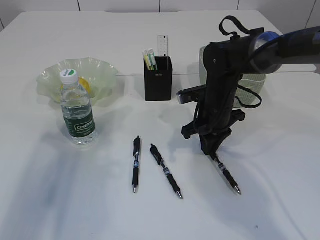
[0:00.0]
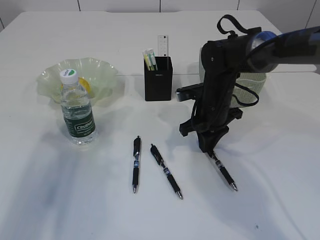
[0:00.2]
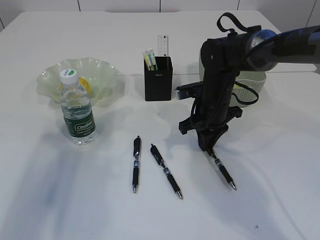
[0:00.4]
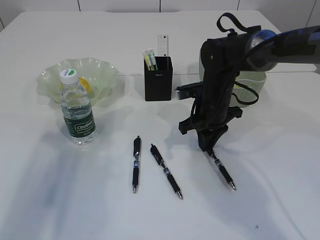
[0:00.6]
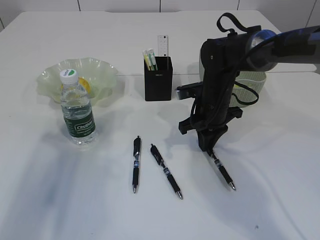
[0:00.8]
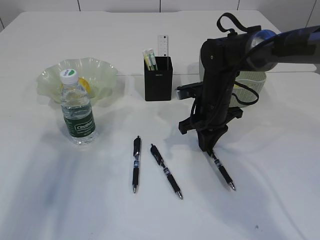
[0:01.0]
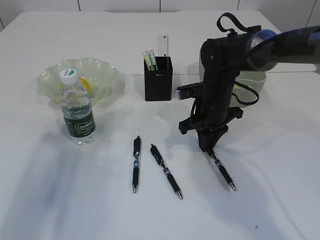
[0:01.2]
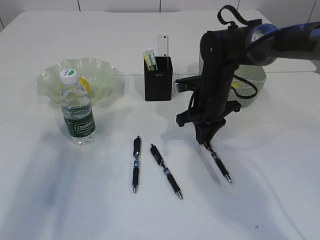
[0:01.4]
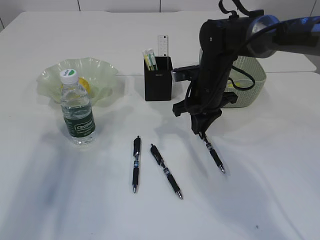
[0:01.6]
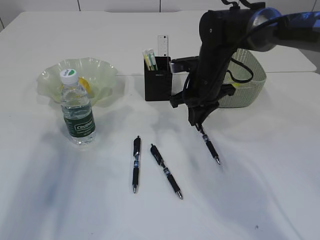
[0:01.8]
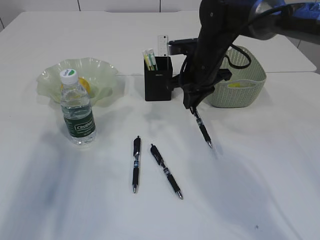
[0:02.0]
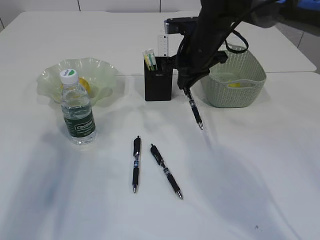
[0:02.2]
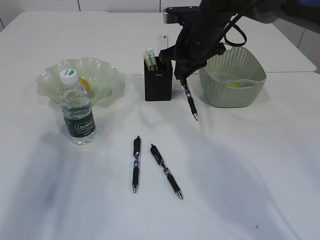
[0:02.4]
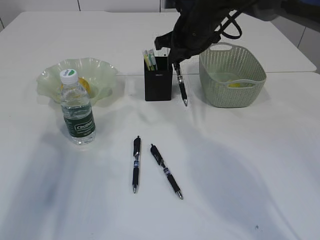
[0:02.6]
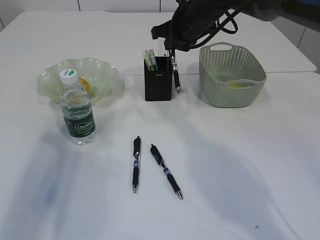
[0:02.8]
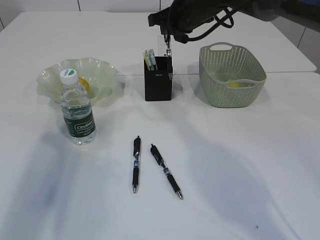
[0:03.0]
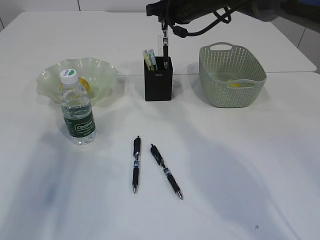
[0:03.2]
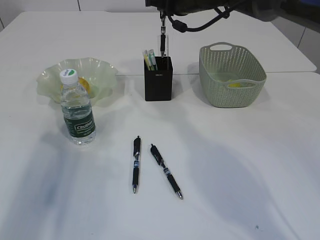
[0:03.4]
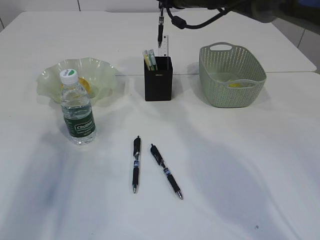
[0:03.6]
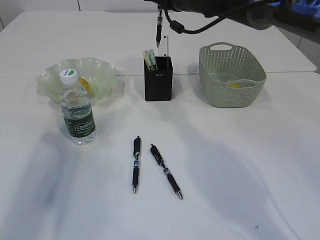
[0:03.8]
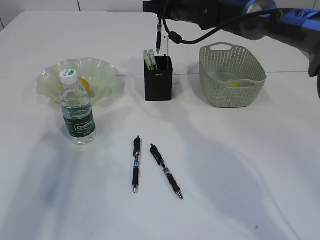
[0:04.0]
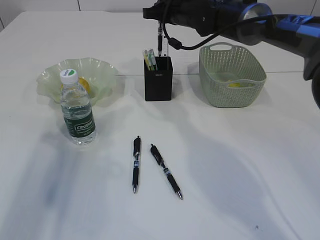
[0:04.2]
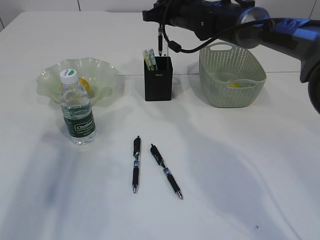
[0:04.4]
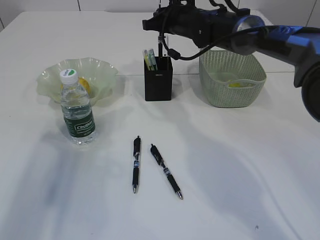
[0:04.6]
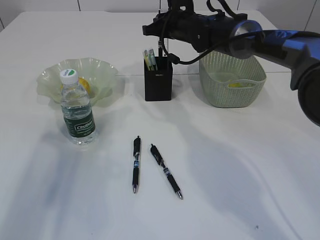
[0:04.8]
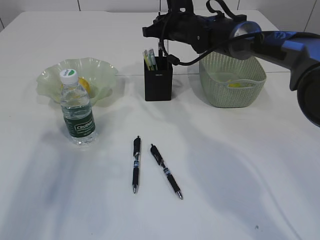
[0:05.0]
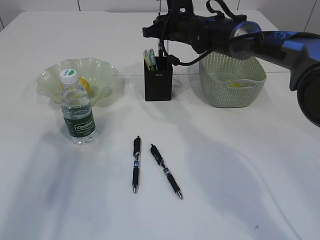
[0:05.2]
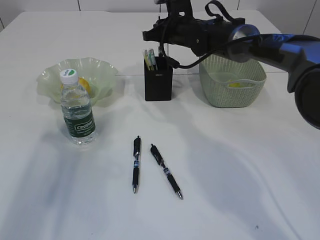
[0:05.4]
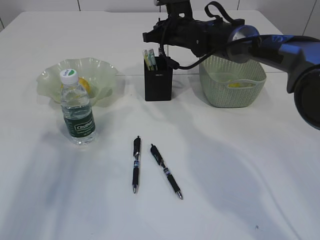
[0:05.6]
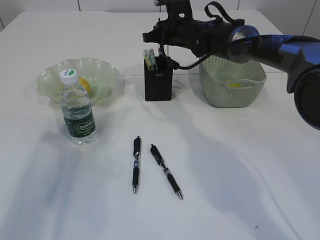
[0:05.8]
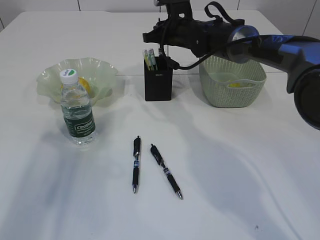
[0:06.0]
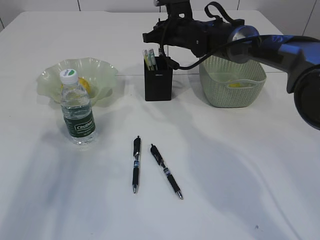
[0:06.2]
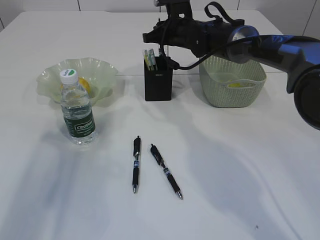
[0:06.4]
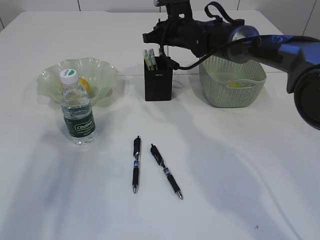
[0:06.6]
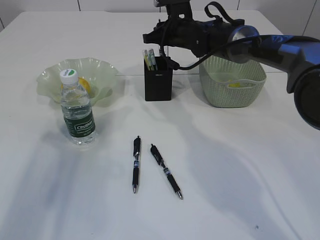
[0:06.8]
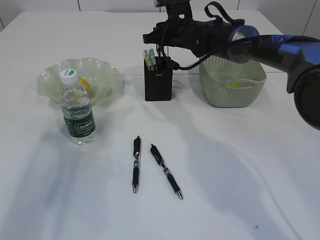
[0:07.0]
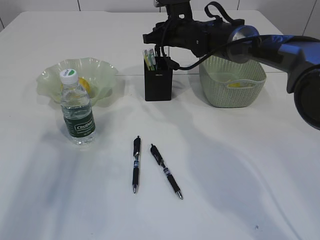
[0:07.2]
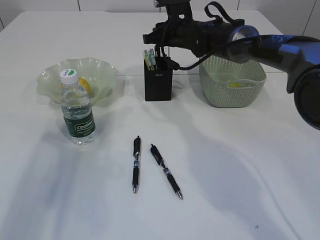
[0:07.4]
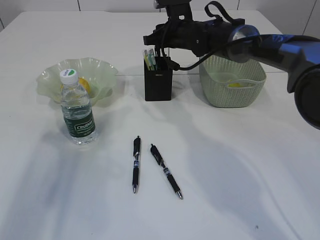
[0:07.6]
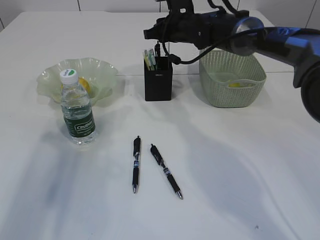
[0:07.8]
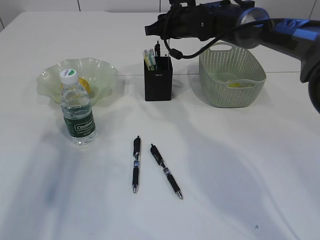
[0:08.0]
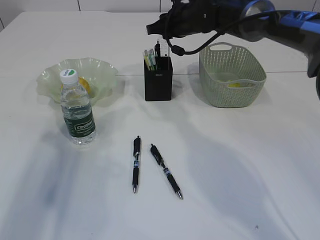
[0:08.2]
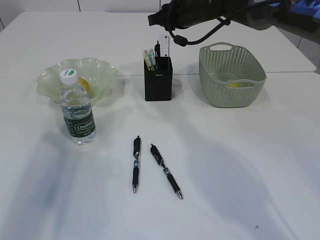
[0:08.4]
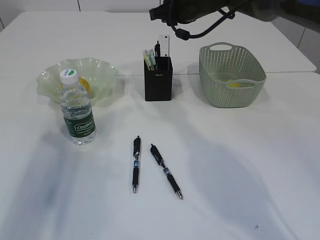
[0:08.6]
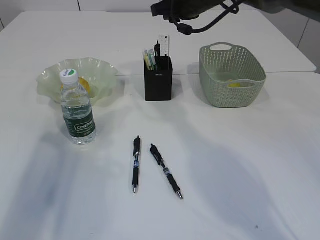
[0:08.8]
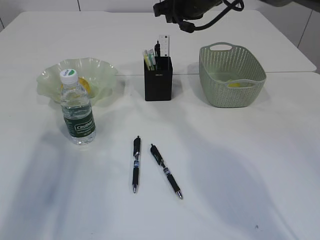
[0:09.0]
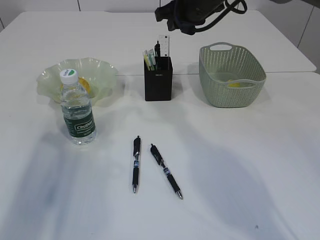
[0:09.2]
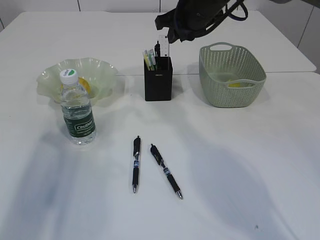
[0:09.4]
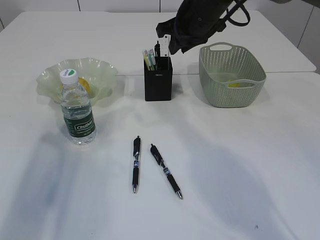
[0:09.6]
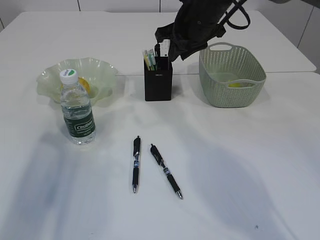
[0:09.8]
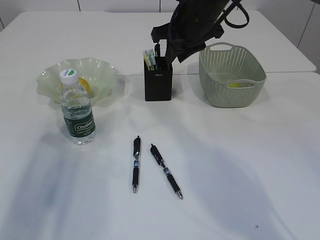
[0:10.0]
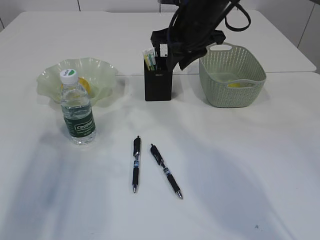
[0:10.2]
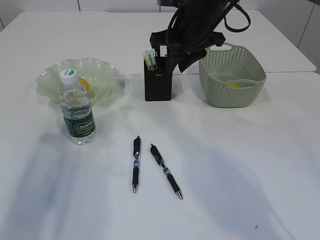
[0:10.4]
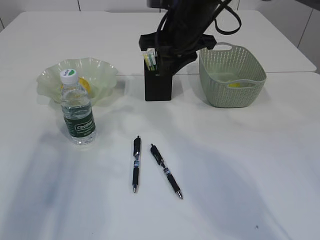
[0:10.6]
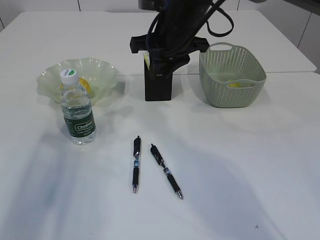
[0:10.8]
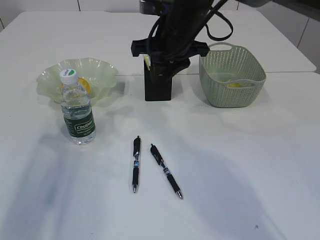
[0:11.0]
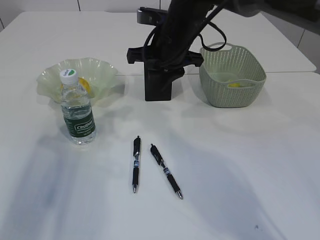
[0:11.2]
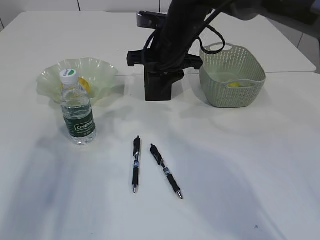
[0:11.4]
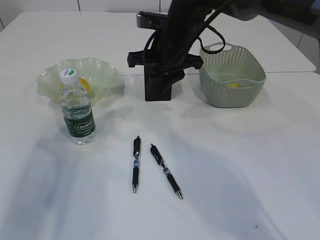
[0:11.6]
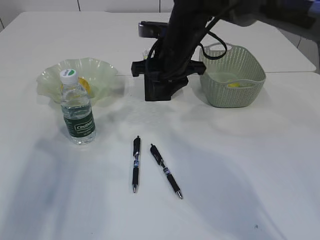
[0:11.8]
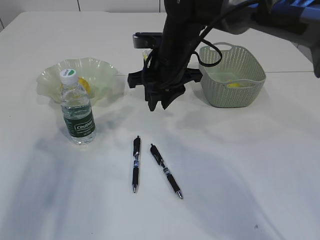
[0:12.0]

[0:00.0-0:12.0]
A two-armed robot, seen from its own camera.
Step, 0:00.0 to 0:02.2: Pick up the pen with right arm.
Step, 0:02.4 to 0:12.0: Place the pen into the pen holder.
0:00.0 to 0:01.6: There are only small adjustments of the grippers.
0:01.6 to 0:03.0: The right gripper moves upward and forward, some 15 cm.
0:04.4 to 0:06.0: The grippers move only a little.
0:06.0 to 0:07.6: Both grippers stay put.
0:07.6 to 0:09.0: The right gripper goes some 10 cm upward.
0:09.0 to 0:10.4: The right gripper goes about 5 cm backward.
0:10.4 to 0:12.0: The right gripper shifts roughly 5 cm downward.

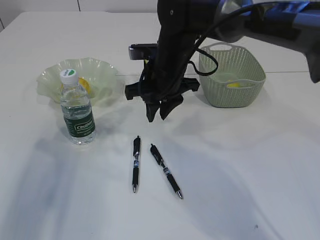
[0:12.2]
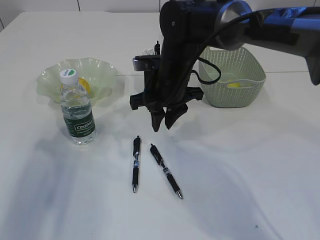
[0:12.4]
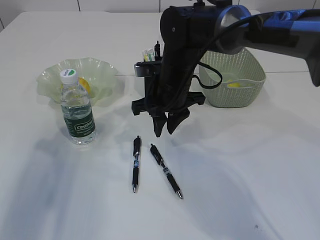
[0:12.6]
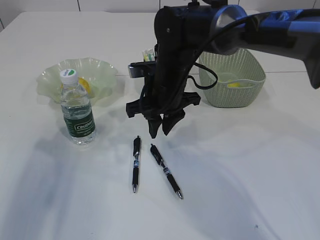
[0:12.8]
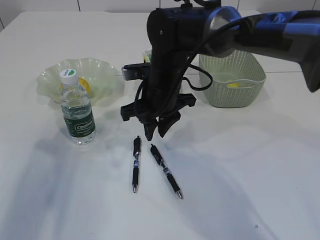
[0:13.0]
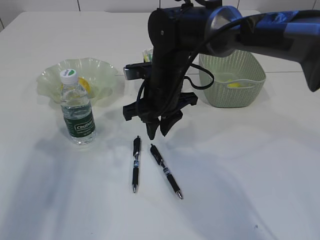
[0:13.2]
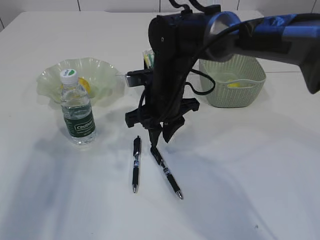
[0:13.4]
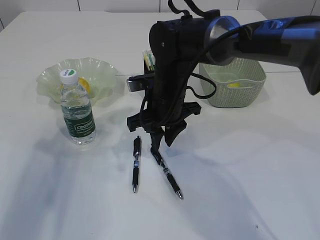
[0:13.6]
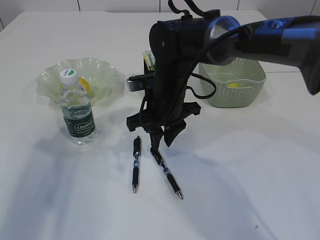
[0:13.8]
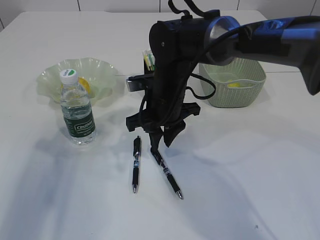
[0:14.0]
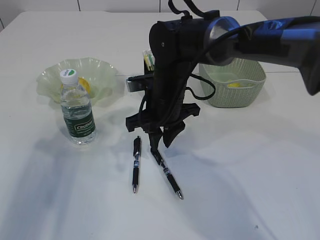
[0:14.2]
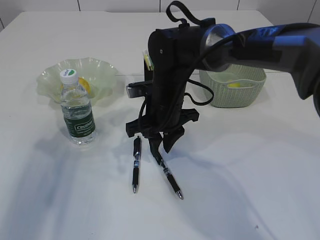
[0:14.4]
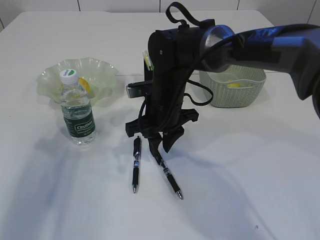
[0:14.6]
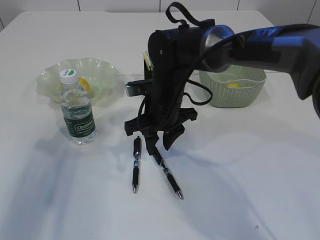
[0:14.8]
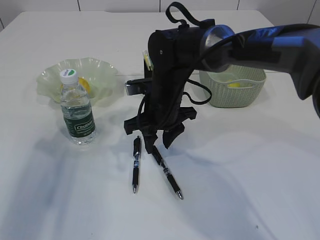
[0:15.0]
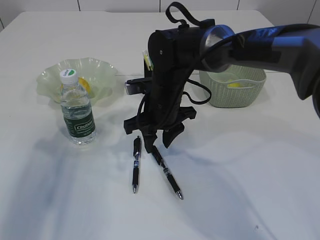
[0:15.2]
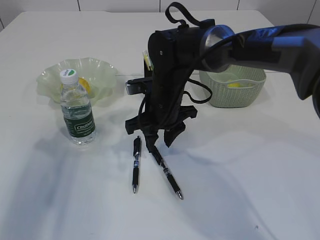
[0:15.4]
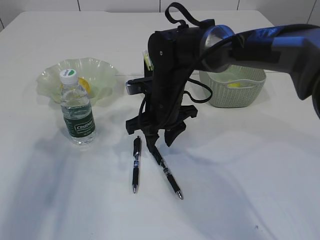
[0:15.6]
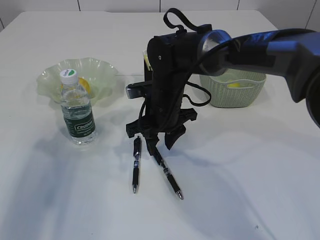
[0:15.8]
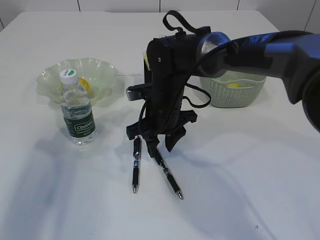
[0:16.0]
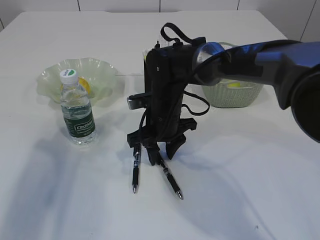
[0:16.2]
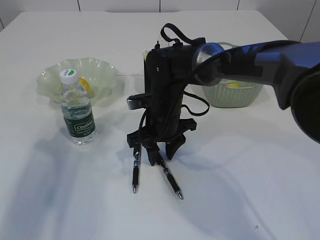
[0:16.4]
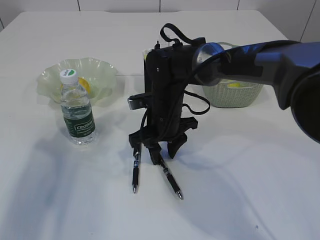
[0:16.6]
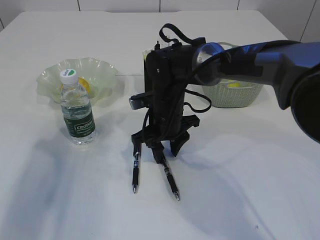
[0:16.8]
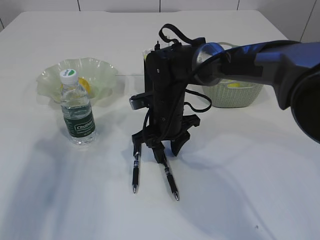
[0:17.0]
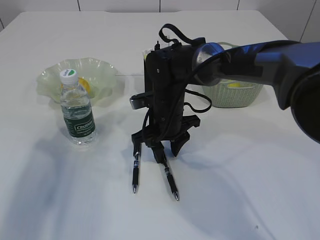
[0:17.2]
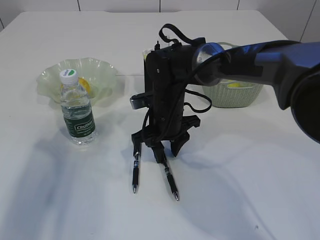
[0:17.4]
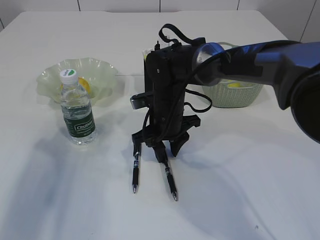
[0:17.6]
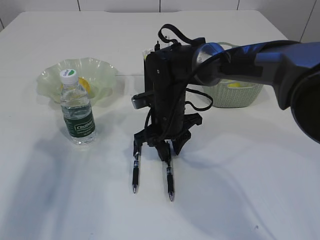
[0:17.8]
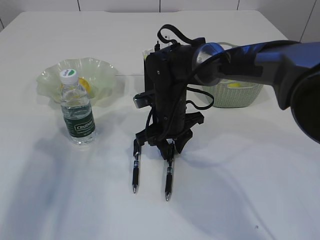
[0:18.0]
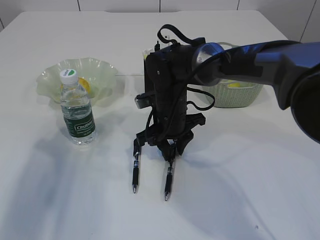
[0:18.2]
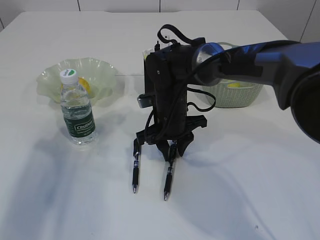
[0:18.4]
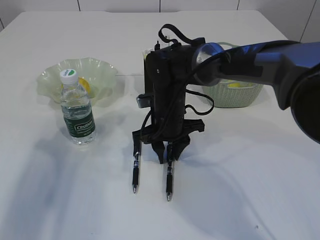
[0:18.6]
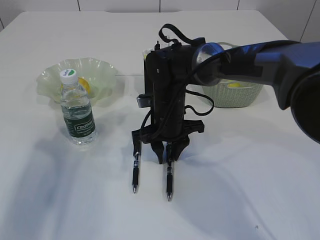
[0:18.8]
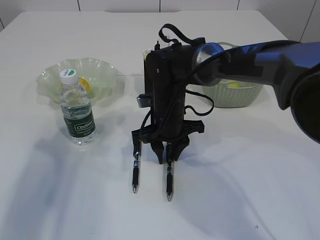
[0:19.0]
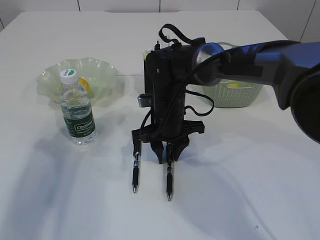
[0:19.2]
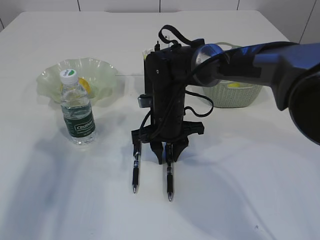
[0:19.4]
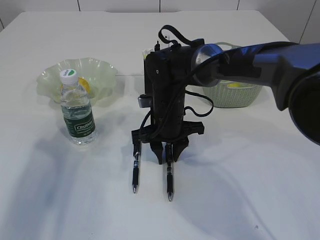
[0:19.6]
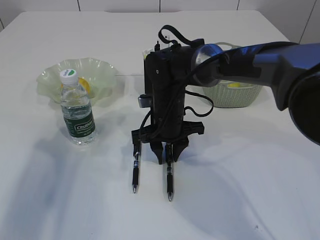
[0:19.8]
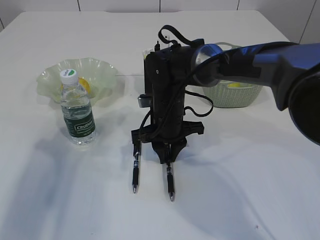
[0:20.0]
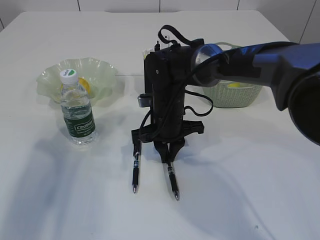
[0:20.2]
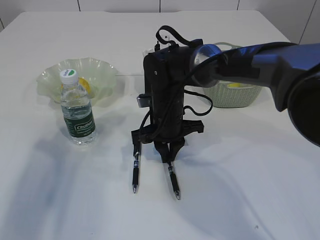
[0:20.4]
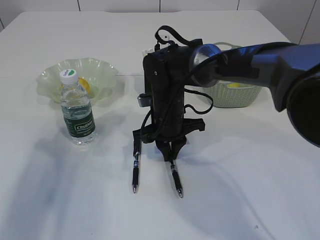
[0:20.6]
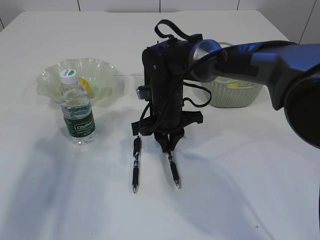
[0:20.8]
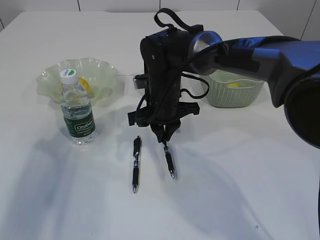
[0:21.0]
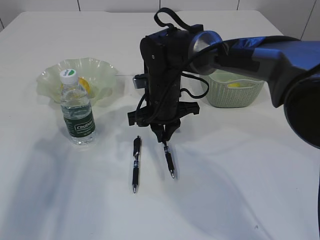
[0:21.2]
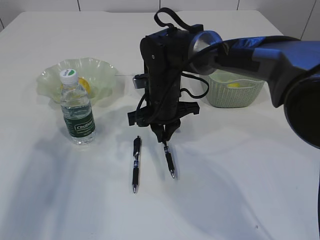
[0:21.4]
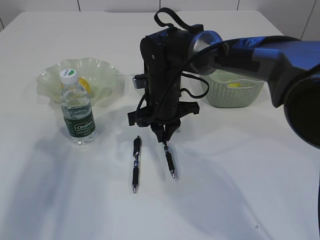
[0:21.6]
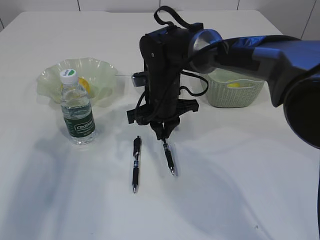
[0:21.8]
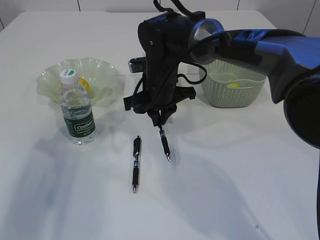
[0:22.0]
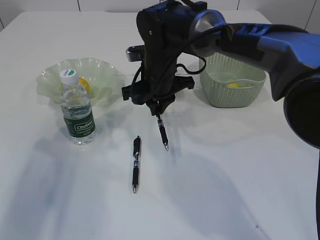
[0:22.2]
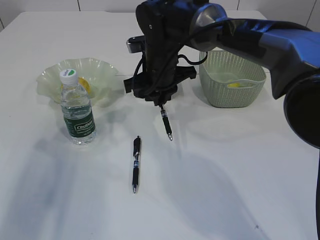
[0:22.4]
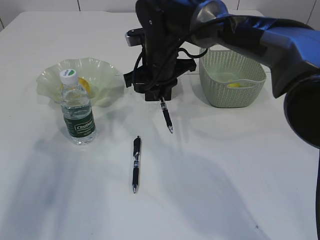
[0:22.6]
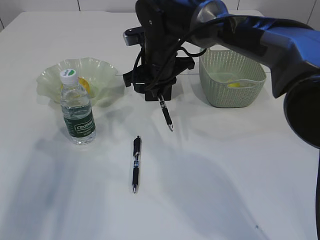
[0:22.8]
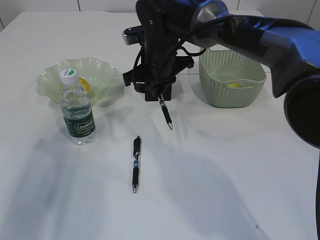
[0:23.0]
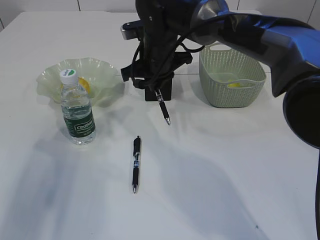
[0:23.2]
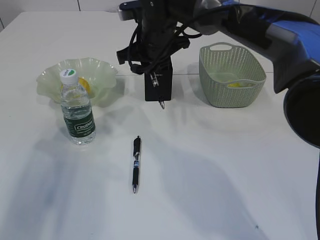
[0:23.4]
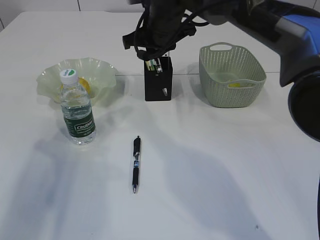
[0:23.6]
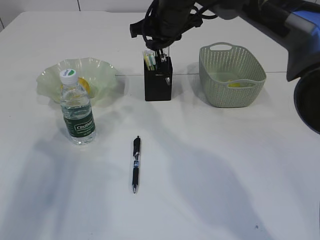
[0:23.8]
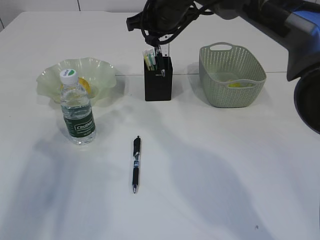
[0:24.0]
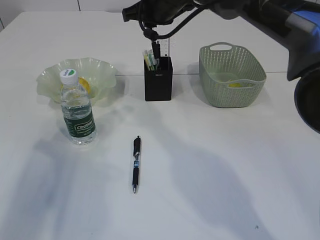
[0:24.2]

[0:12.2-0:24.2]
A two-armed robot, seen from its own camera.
Step, 0:12.2 to 0:22.0: Pick up the pen with right arm.
0:12.2 to 0:13.8: The right gripper ends up approximately 5 cm from where it was.
0:13.8 to 0:21.2: The grippers move only a little.
0:21.2 to 0:22.6: The right gripper is displaced upward by roughly 5 cm.
0:22.6 to 0:24.2: The right gripper heads upward and forward, covering some 10 cm.
